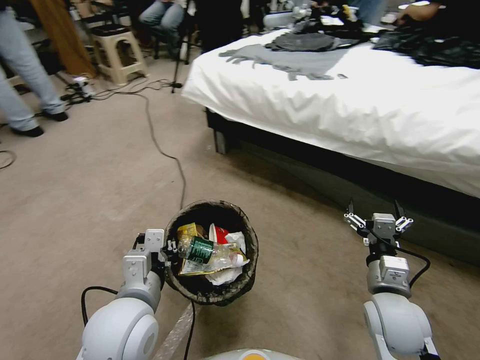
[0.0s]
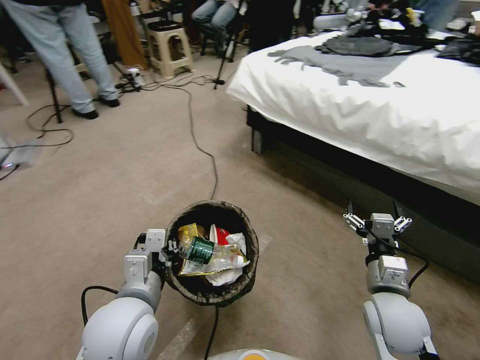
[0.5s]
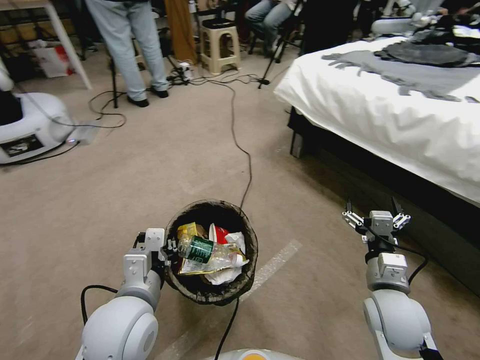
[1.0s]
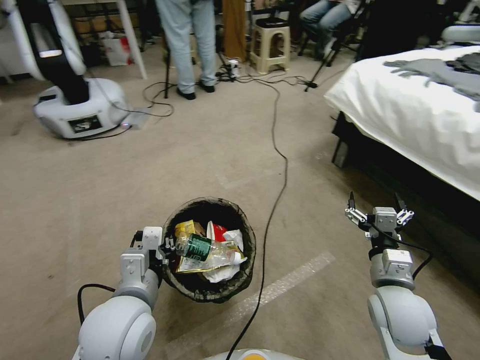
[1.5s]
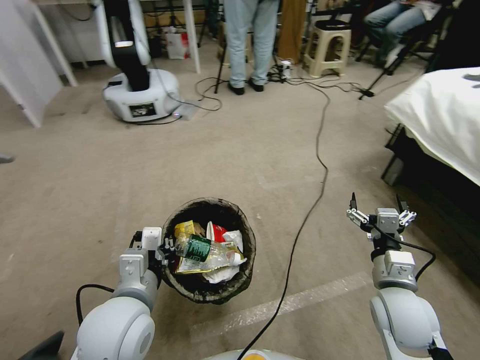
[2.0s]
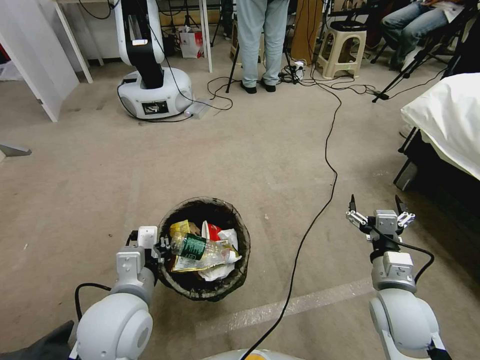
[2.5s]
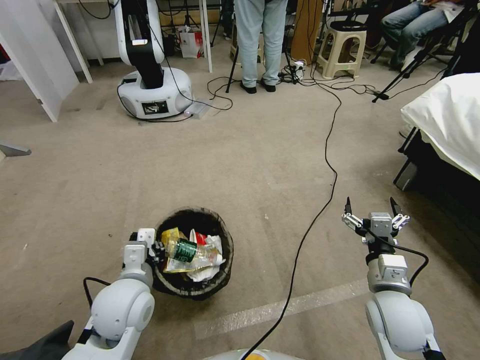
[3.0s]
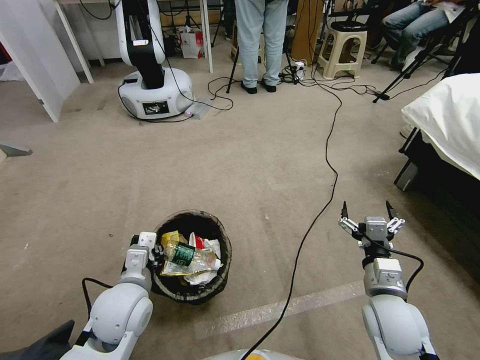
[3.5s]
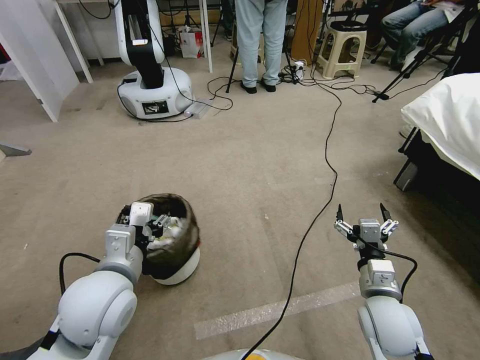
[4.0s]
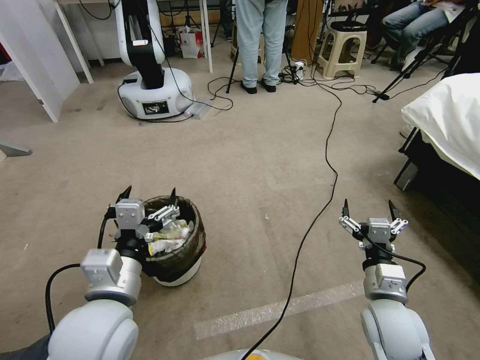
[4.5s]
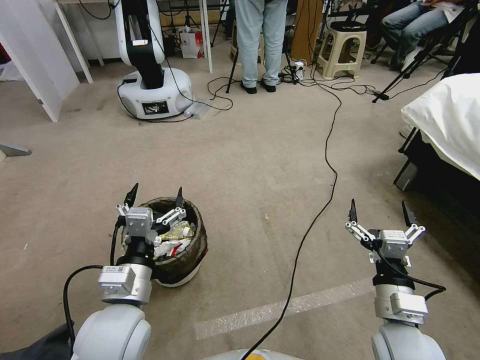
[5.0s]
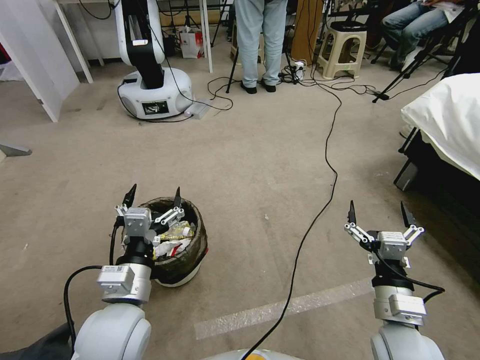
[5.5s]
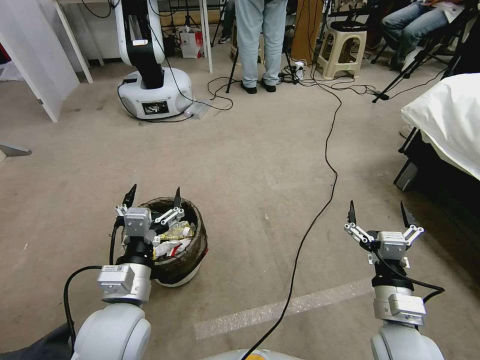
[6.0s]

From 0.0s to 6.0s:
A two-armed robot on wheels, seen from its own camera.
Task of the whole recording: Pick up the trash bin, then pick up the garbage from the floor and place it into the trash bin.
From 2.0s to 4.0s: The left gripper moves roughly 5 cm downward and comes back, and opens up.
From 4.0s to 6.0s: The right gripper is displaced backward by roughly 5 cm; the left gripper shifts by about 5 cm, and opens its fingers.
